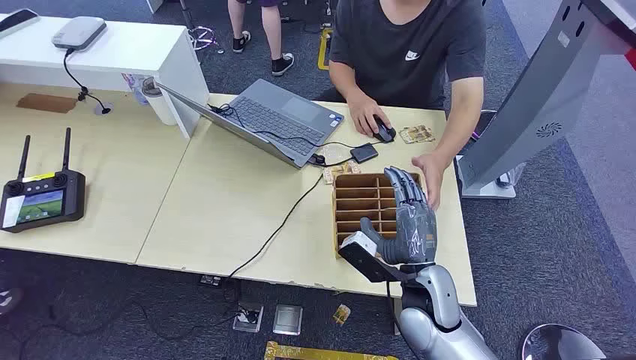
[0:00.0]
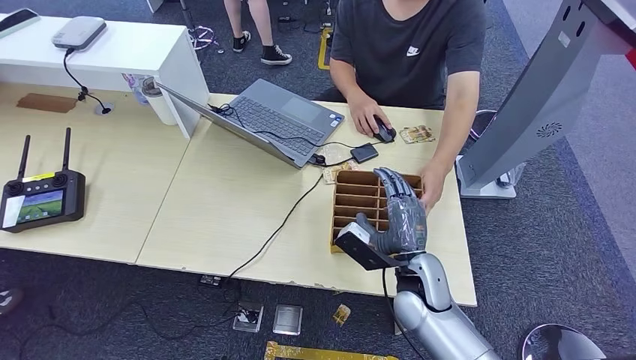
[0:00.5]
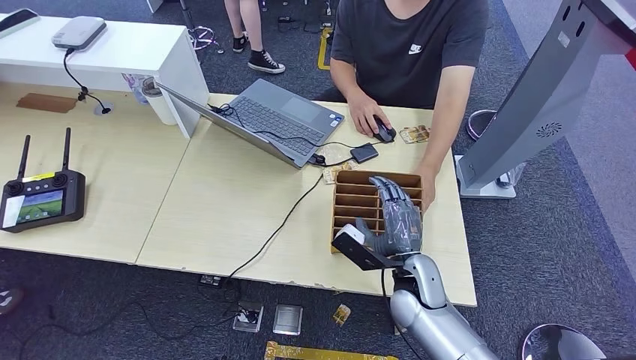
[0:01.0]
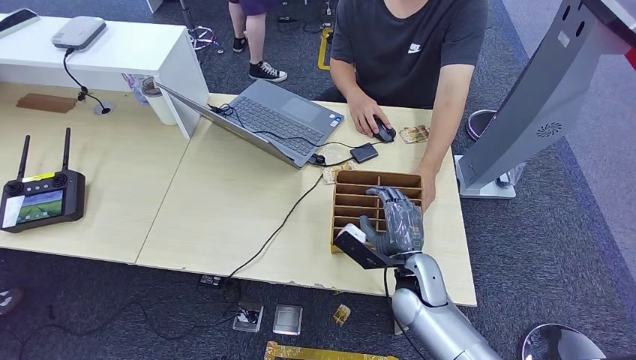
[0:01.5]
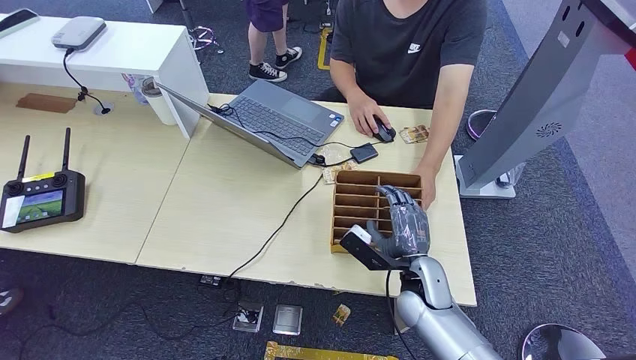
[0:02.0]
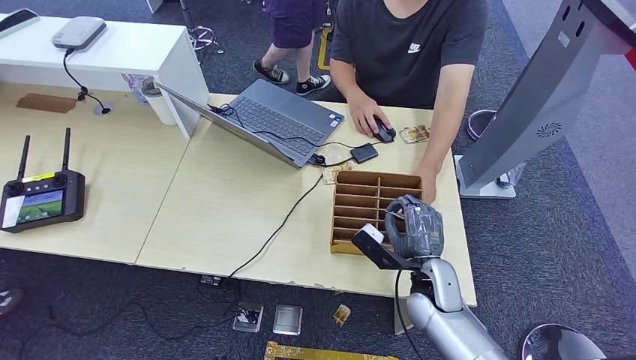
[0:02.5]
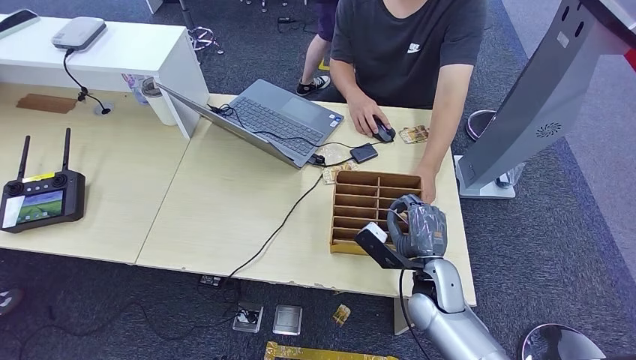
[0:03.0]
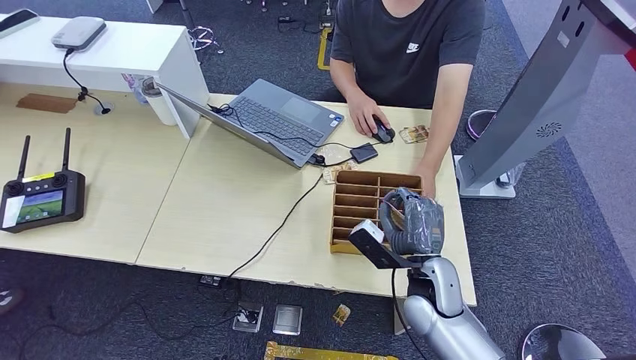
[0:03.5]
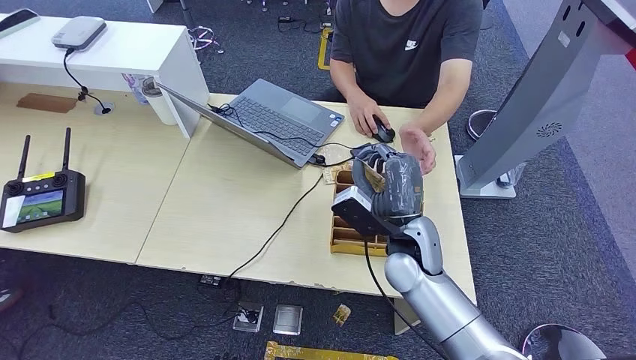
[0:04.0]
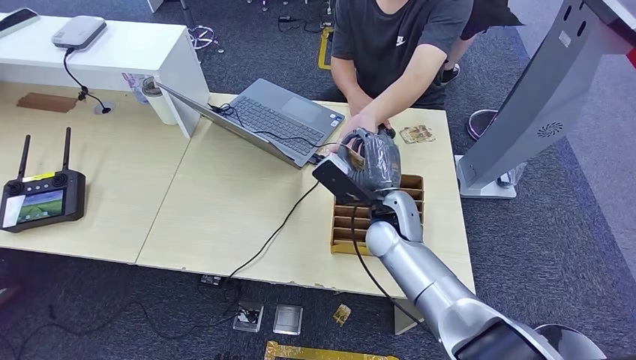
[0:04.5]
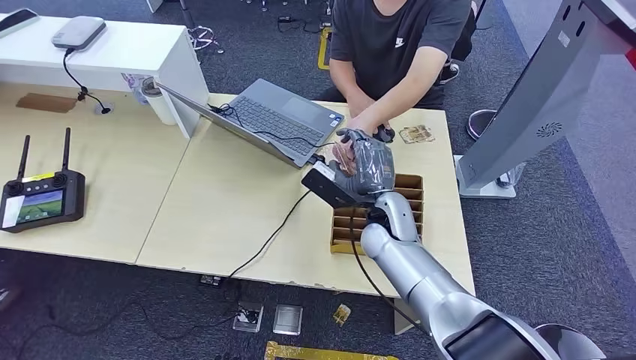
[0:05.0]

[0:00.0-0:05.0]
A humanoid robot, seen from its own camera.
Step, 0:00.0 to 0:03.5: Pick up the room card from the card holder.
Step, 0:04.0 to 0:04.5: Hand the room card to the target.
0:02.5 to 0:05.0: The right hand goes some 15 cm forward, upward and to the left.
